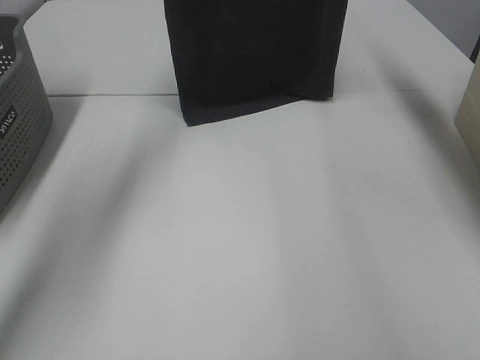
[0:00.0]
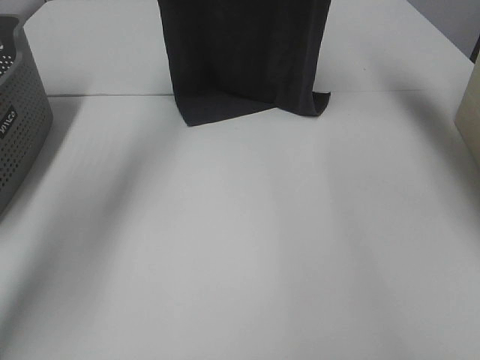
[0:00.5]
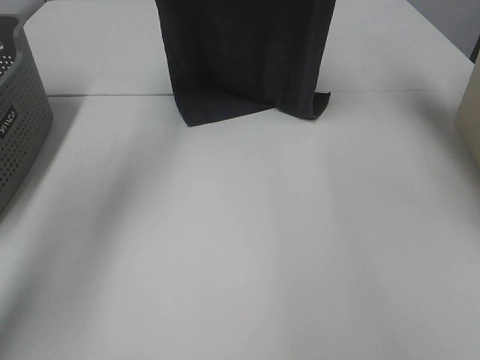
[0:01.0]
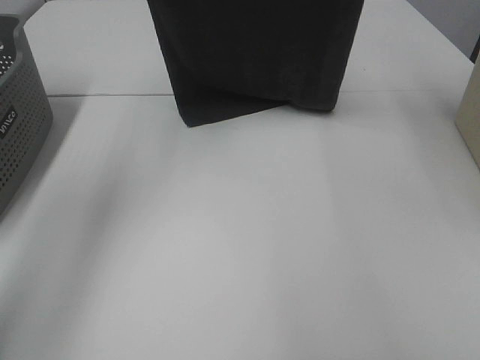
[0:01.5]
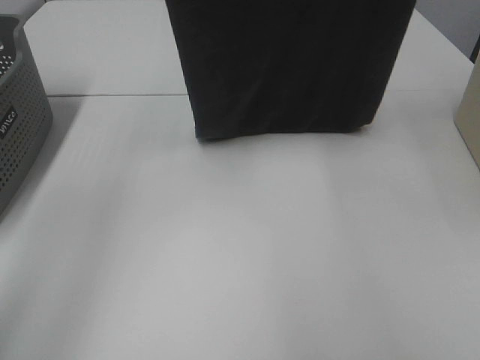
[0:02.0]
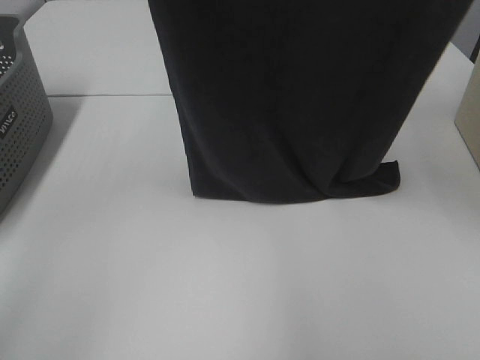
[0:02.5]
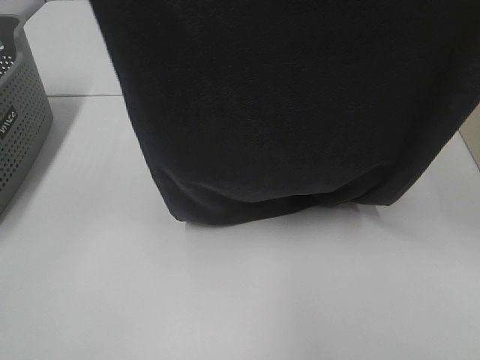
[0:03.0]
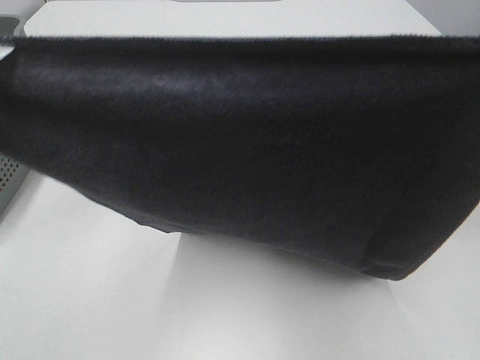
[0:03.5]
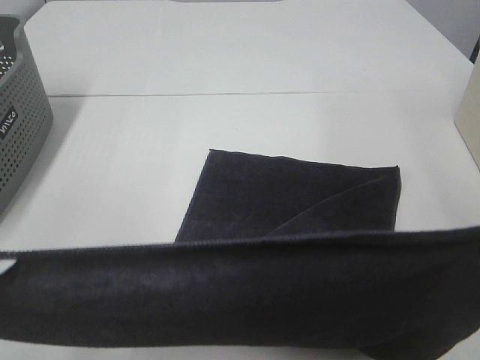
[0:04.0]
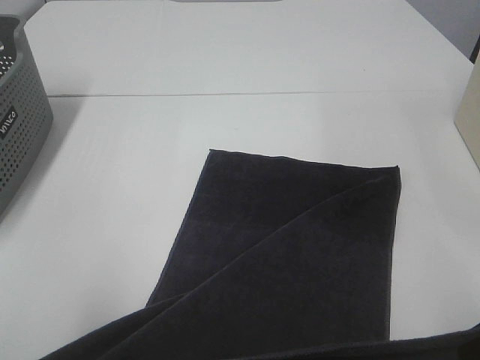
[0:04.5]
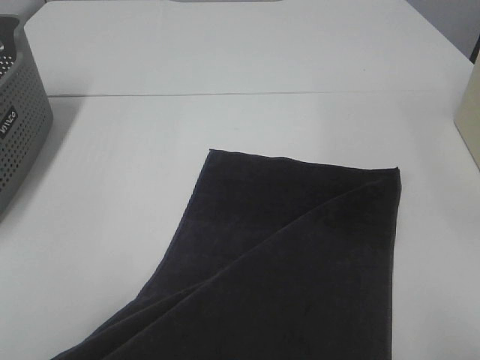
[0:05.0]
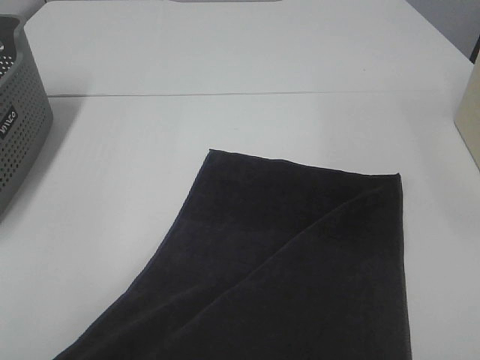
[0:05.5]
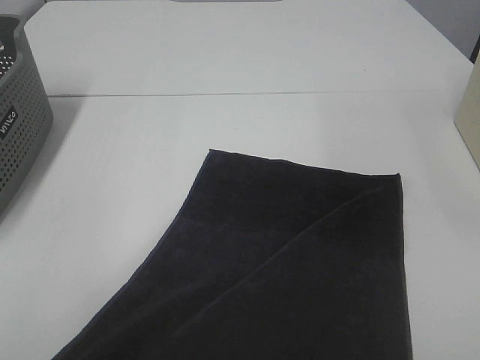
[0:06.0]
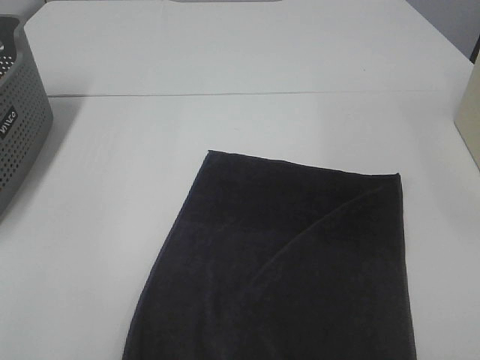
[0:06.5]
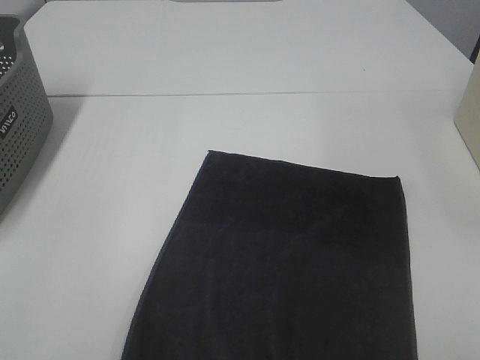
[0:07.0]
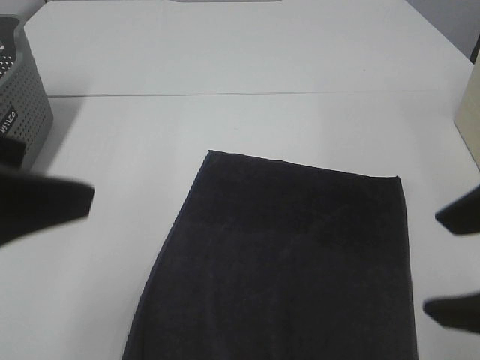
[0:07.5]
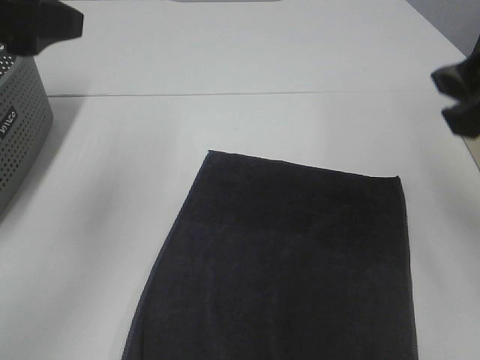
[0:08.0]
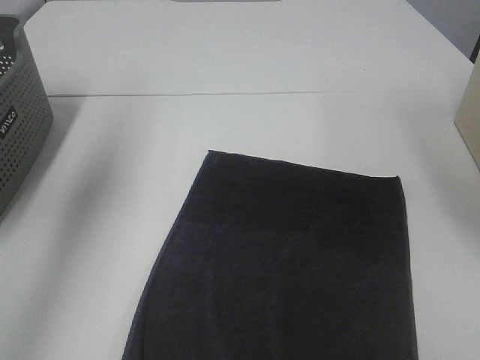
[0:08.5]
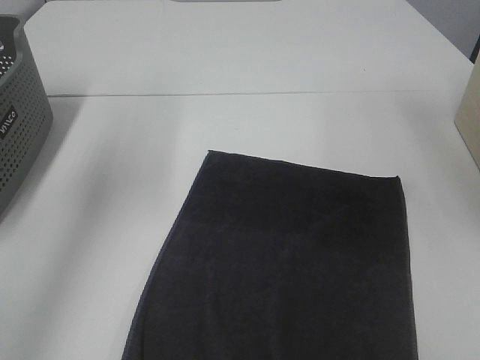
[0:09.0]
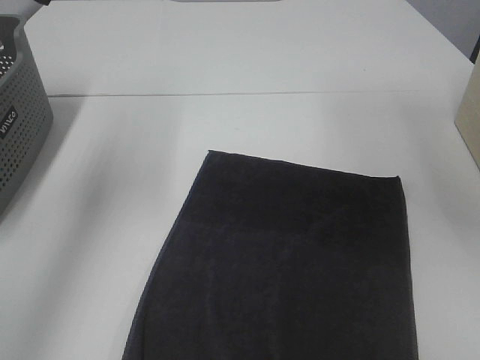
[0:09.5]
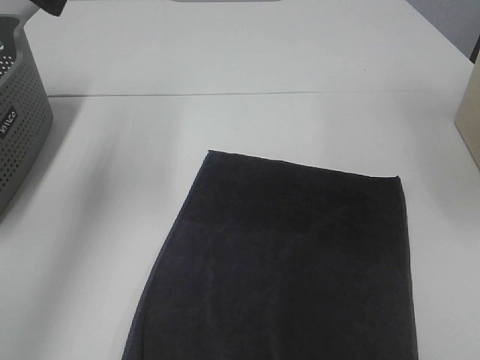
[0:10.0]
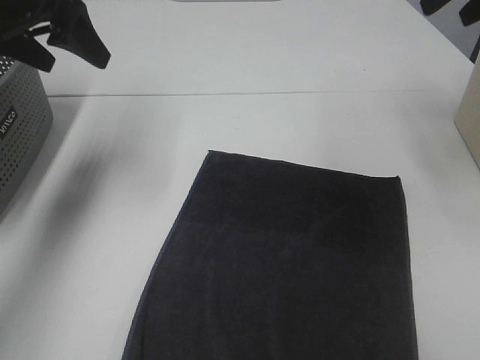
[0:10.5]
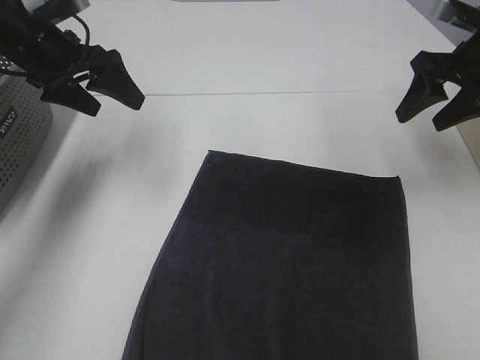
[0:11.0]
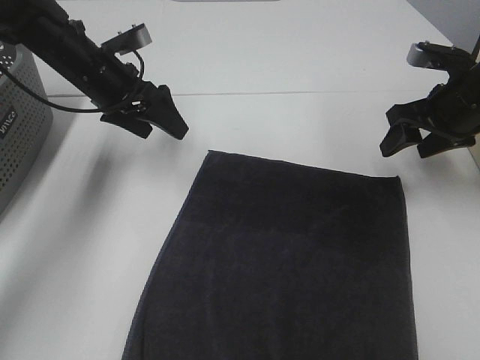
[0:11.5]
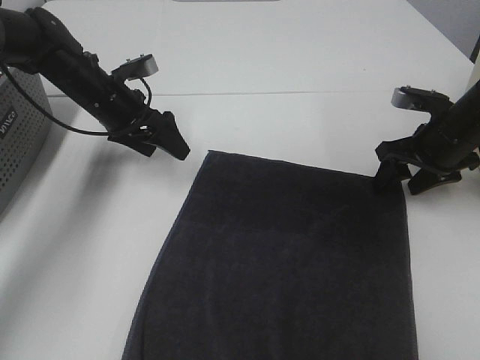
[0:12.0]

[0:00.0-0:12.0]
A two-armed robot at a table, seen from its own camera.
Task of the whole recording: Remove the towel and place it.
0.0 to 2.0 s: The grippers both shift backward and upward by approximately 20 cm.
2.0 to 4.0 s: The left gripper heads backward and downward, covering some 35 cm; the right gripper moves downward and backward, approximately 35 cm.
4.0 to 6.0 s: The left gripper changes place by approximately 5 cm; the right gripper heads backward and downward, covering about 10 cm.
6.0 to 8.0 s: The right gripper goes roughly 15 cm forward and upward, and opens, while the left gripper goes approximately 20 cm forward, and opens.
8.0 to 10.0 s: The left gripper is displaced forward by about 10 cm, while the right gripper heads forward and upward, covering approximately 20 cm.
10.0 to 12.0 s: The right gripper goes roughly 35 cm downward. Meanwhile the left gripper travels downward and forward by about 30 cm.

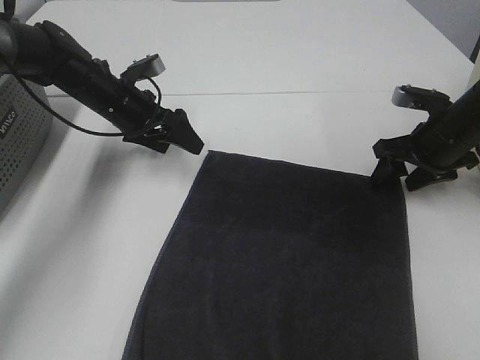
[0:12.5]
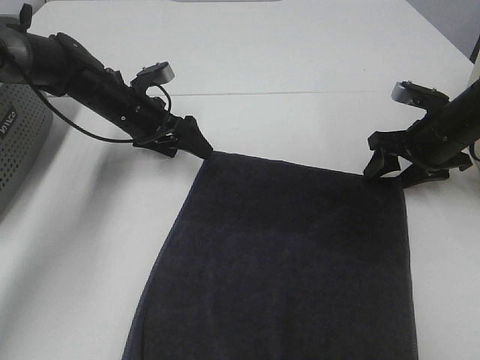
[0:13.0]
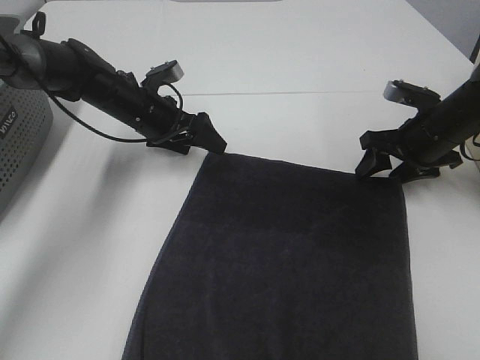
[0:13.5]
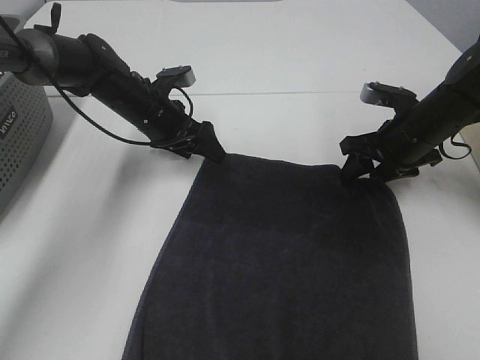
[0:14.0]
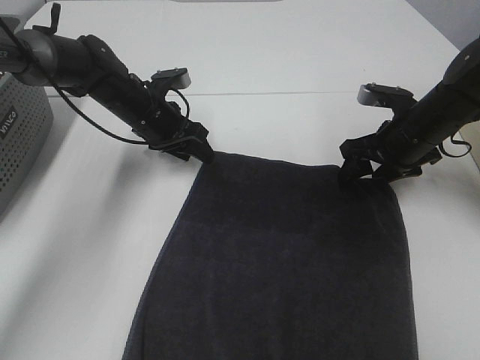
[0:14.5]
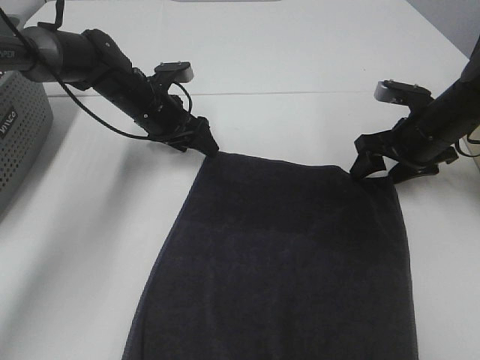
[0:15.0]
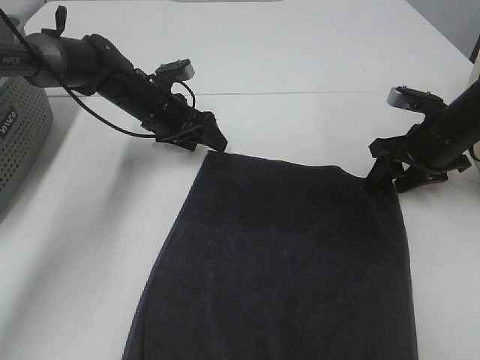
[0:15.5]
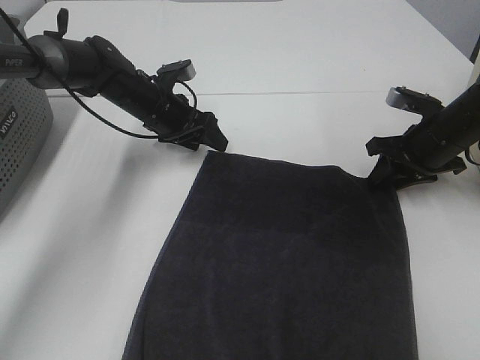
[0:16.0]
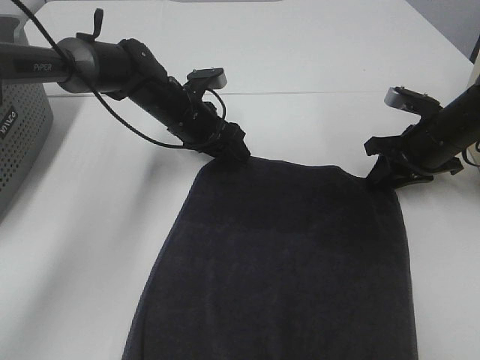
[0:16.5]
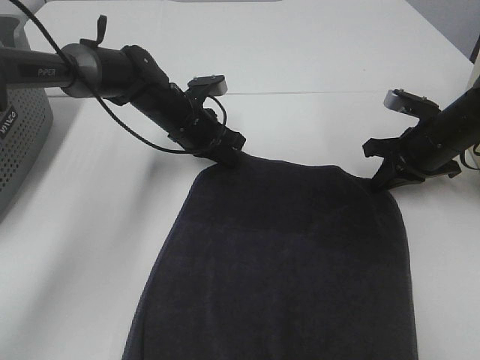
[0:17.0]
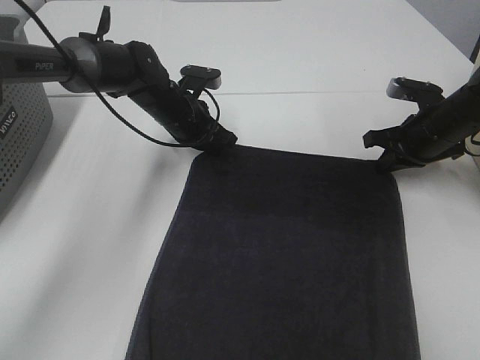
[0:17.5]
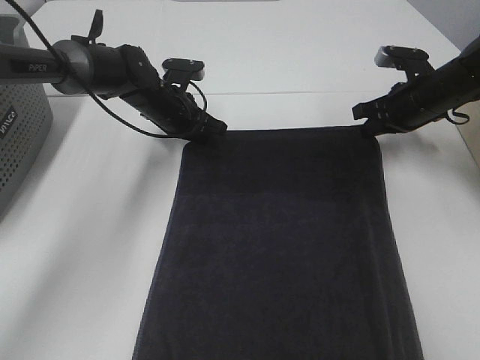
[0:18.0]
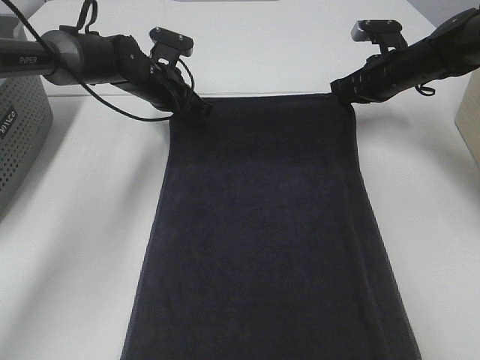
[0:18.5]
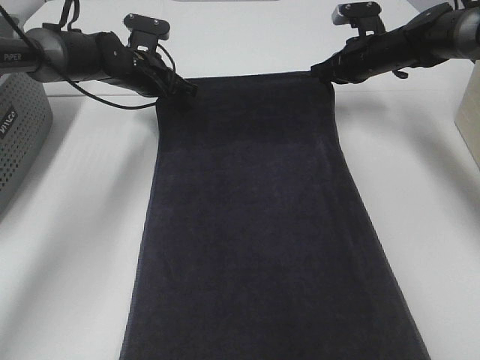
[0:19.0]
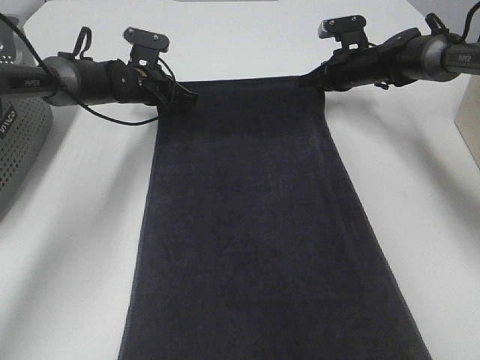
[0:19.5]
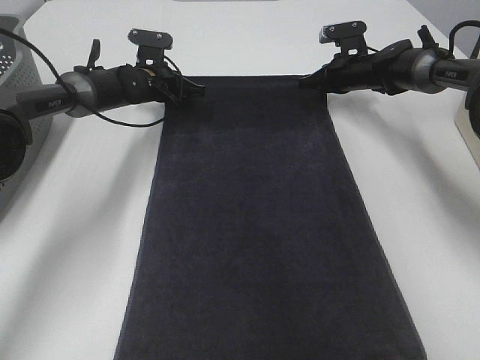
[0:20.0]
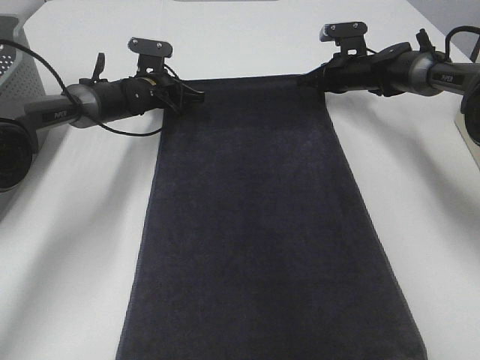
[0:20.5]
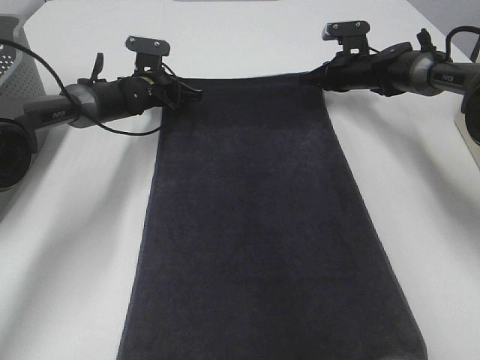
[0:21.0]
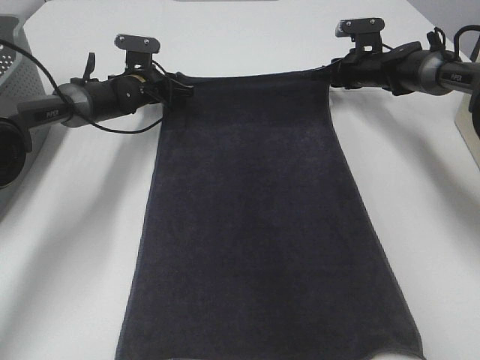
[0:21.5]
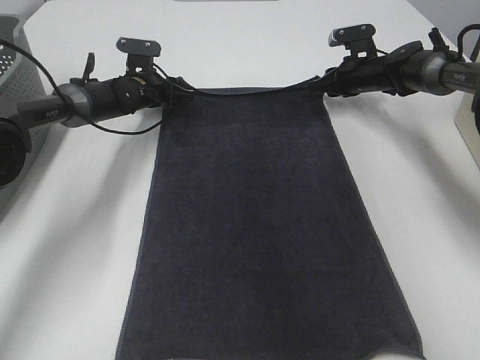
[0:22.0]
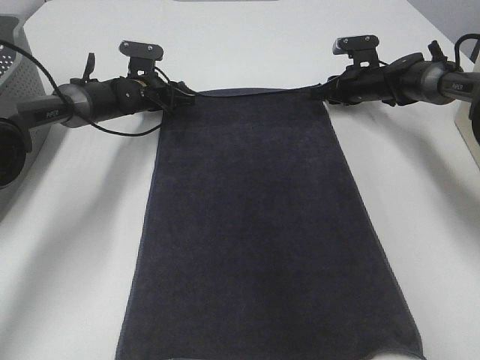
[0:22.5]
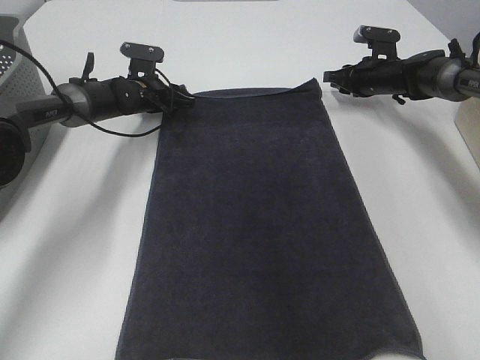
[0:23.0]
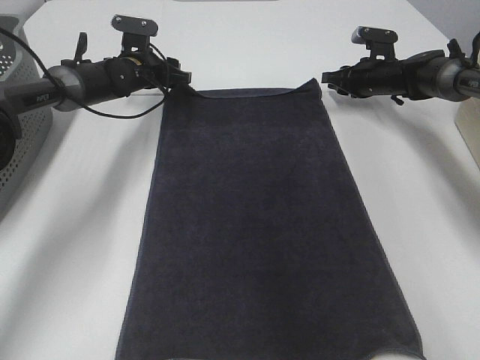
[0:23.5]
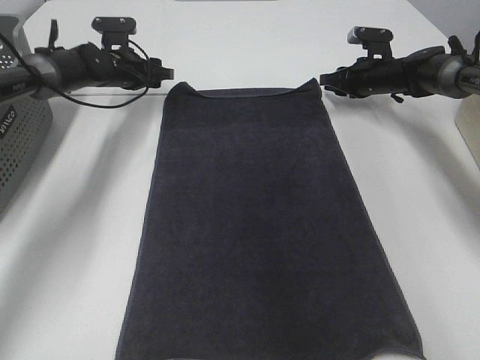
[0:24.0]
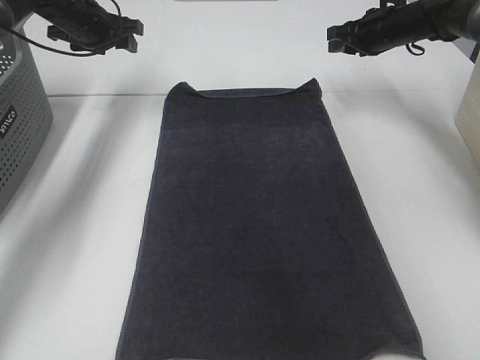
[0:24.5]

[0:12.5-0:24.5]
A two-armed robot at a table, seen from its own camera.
Task of the whole recording: Remove the towel and place it.
Step, 12.5 to 14.5 s: Left hand:adjust the gray towel.
Step, 12.5 to 14.5 s: Right hand:adjust the gray towel.
12.5 to 14.5 s: The left gripper closes.
14.5 to 16.5 s: The left gripper shifts approximately 5 cm to the right, while the right gripper closes its fingers.
16.5 to 18.5 s: The left gripper is displaced forward by approximately 5 cm, and closes, while the right gripper shifts about 10 cm forward, and closes up.
18.5 to 20.5 s: The right gripper shifts about 10 cm forward. Meanwhile the left gripper is displaced forward and downward by approximately 10 cm.
20.5 to 22.5 s: The left gripper opens. The right gripper opens its fingers.
22.5 to 24.5 s: The right gripper is displaced upward by roughly 10 cm. The left gripper goes approximately 15 cm upward and to the left.

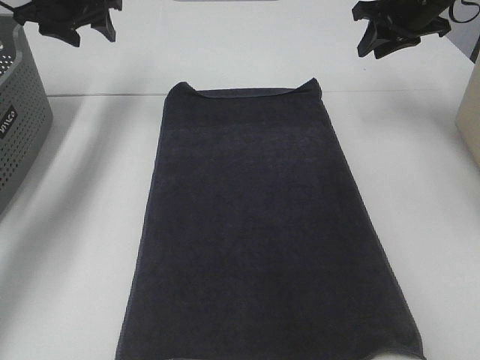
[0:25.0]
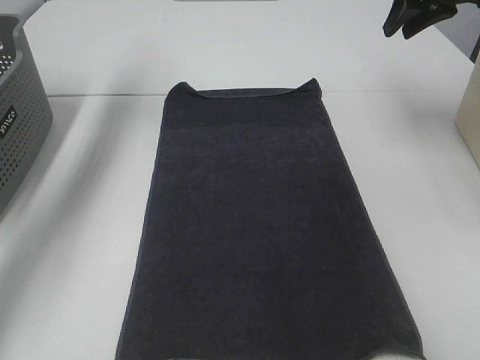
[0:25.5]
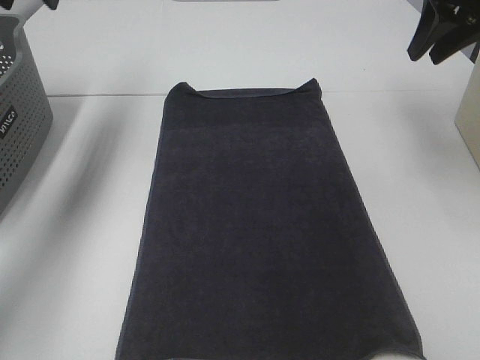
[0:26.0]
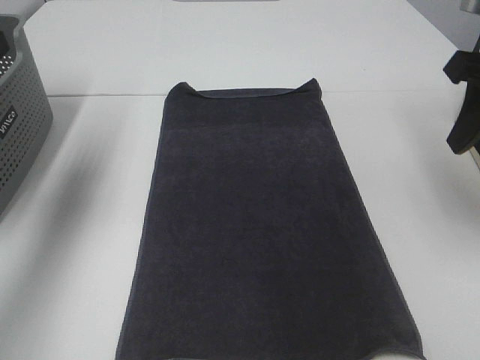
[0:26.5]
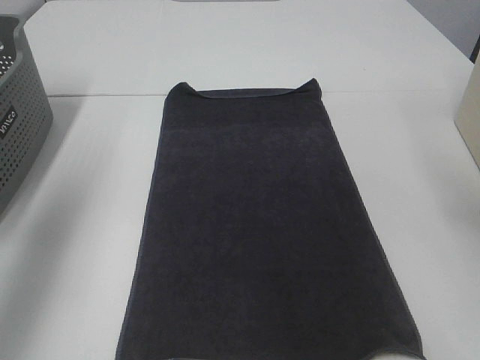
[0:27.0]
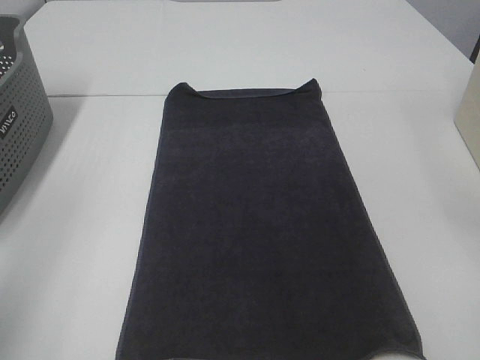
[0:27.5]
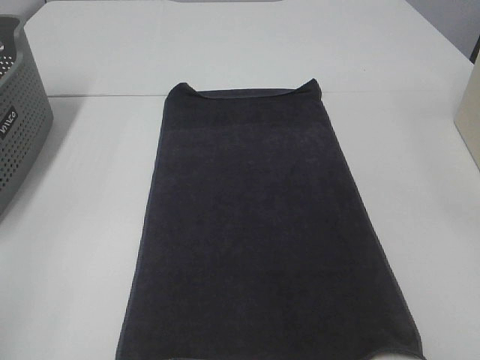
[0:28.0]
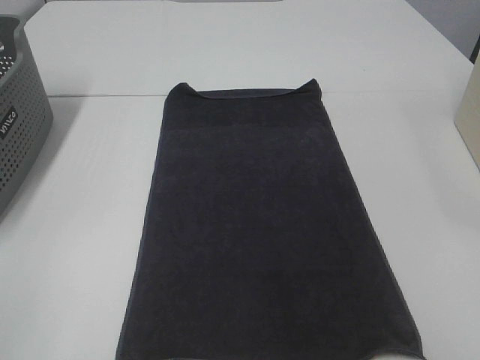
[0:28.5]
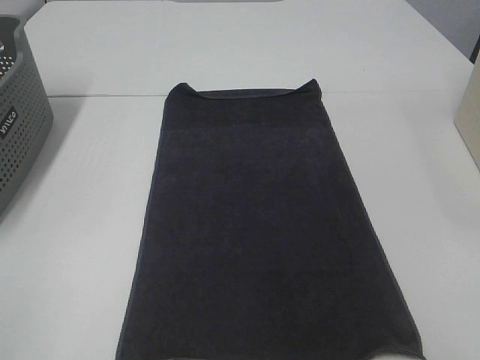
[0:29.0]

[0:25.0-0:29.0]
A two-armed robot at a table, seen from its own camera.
Task of the whole recording: Remove the towel and place it.
25.0 to 27.0 s: The grippers both shift backward by roughly 30 cm.
27.0 to 29.0 s: The left gripper shifts roughly 25 cm backward.
